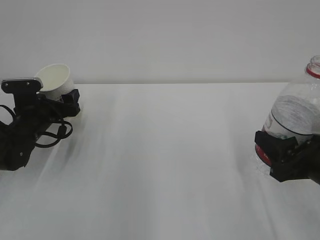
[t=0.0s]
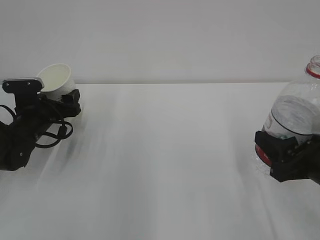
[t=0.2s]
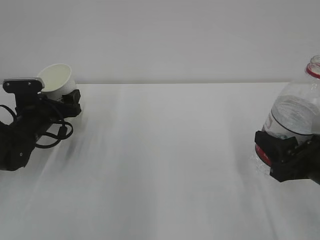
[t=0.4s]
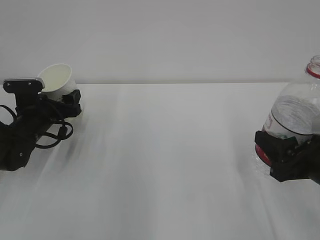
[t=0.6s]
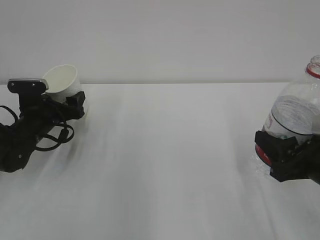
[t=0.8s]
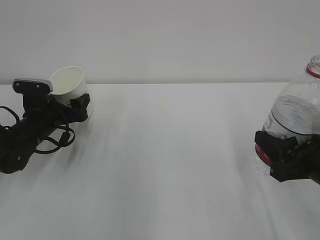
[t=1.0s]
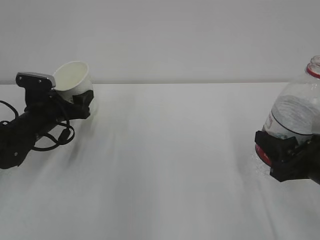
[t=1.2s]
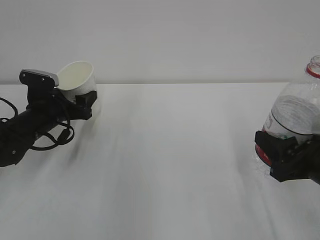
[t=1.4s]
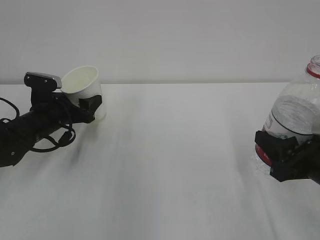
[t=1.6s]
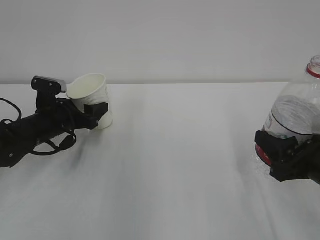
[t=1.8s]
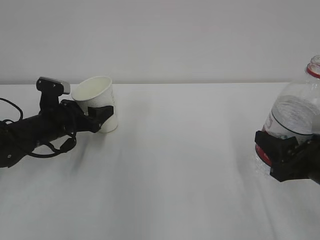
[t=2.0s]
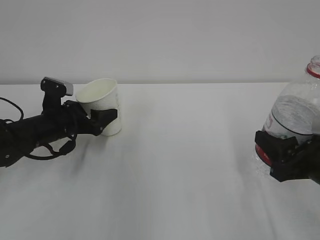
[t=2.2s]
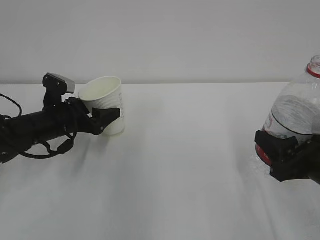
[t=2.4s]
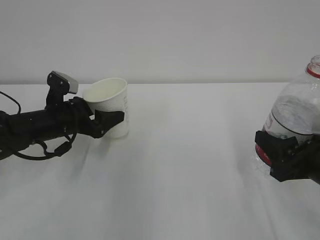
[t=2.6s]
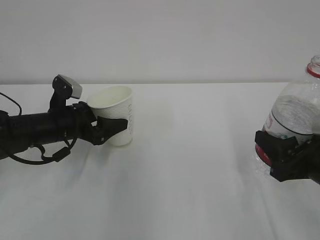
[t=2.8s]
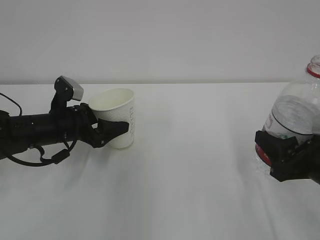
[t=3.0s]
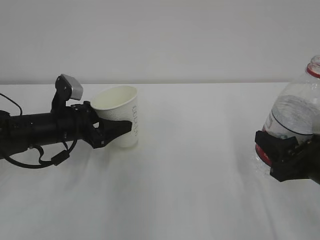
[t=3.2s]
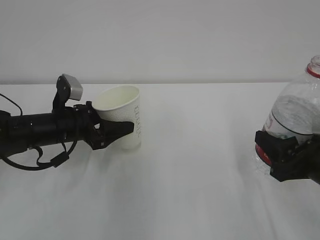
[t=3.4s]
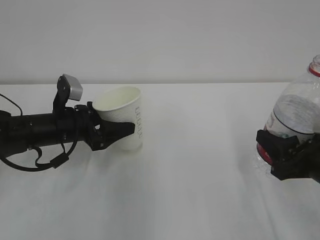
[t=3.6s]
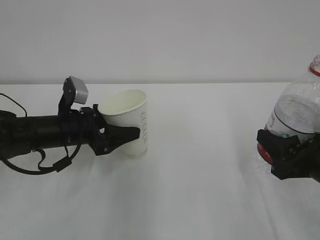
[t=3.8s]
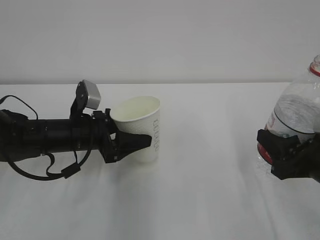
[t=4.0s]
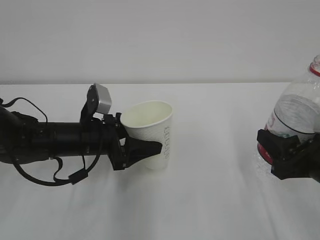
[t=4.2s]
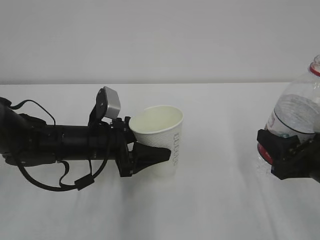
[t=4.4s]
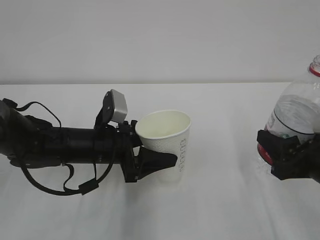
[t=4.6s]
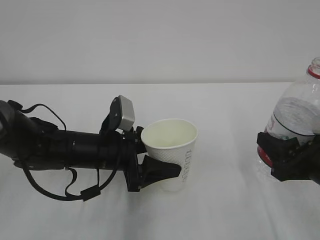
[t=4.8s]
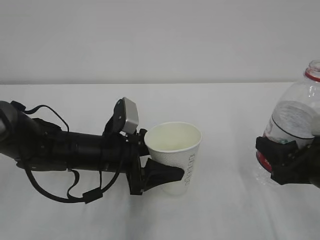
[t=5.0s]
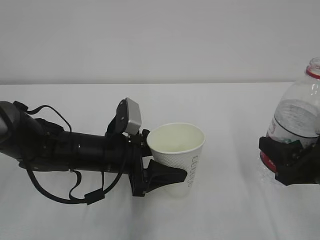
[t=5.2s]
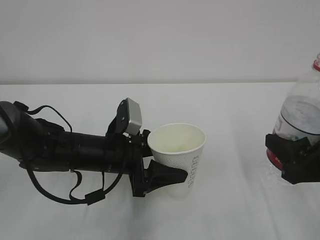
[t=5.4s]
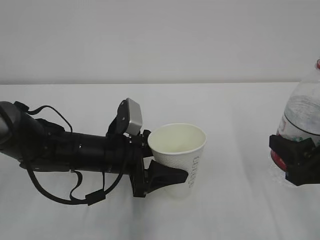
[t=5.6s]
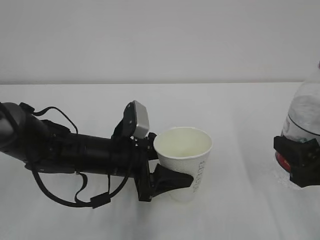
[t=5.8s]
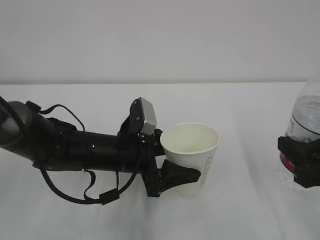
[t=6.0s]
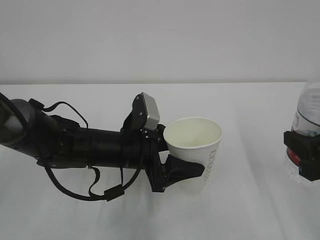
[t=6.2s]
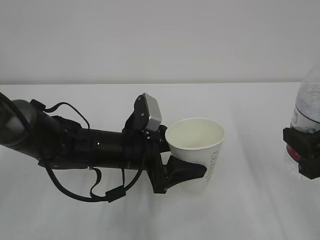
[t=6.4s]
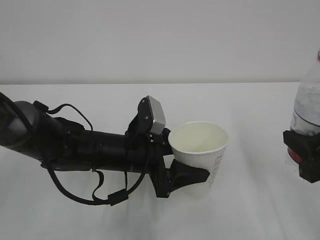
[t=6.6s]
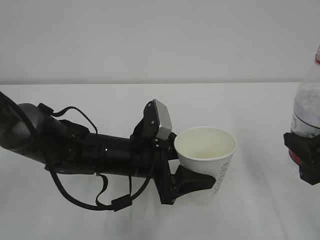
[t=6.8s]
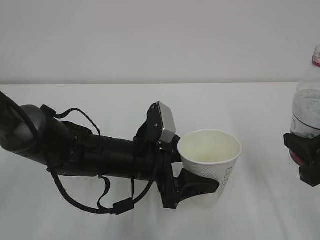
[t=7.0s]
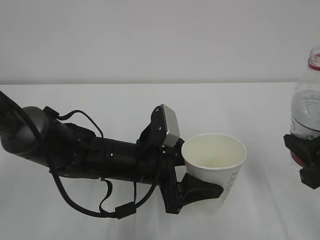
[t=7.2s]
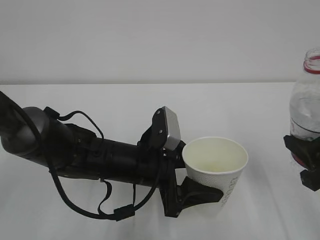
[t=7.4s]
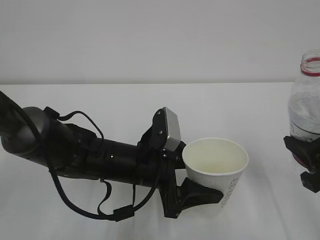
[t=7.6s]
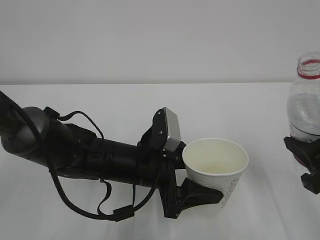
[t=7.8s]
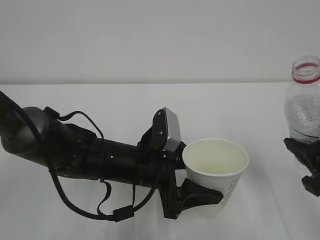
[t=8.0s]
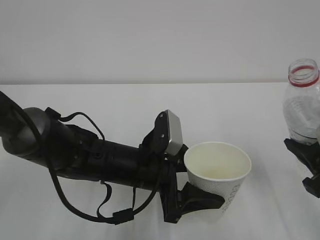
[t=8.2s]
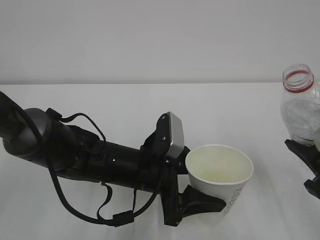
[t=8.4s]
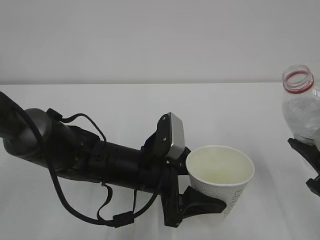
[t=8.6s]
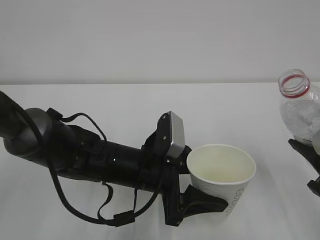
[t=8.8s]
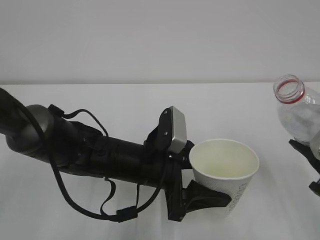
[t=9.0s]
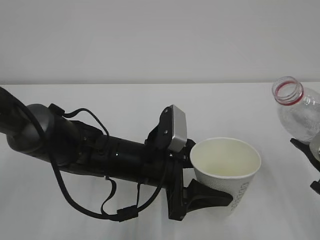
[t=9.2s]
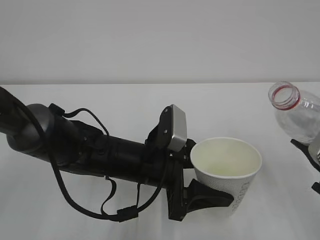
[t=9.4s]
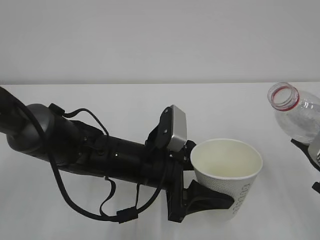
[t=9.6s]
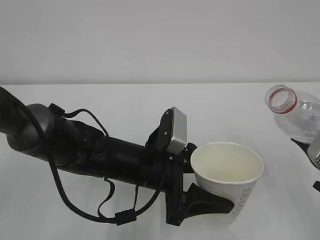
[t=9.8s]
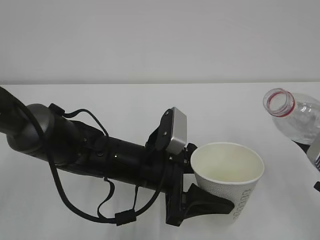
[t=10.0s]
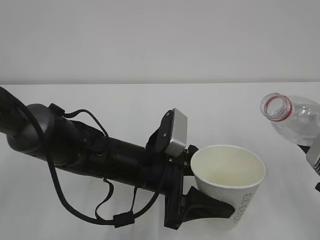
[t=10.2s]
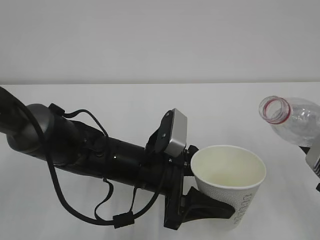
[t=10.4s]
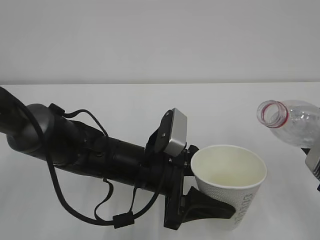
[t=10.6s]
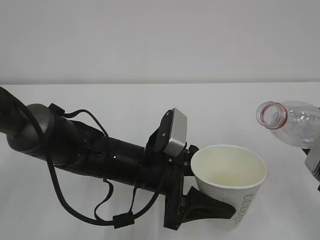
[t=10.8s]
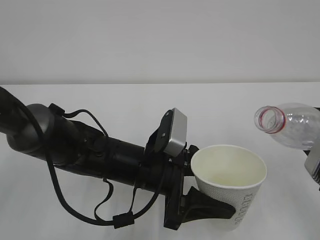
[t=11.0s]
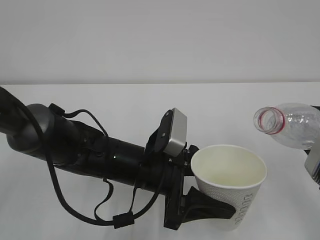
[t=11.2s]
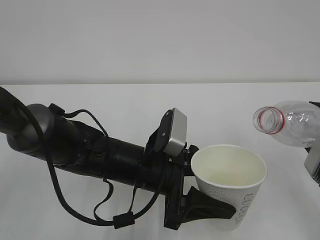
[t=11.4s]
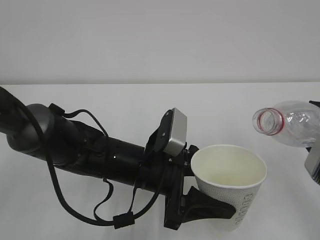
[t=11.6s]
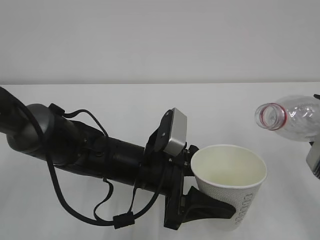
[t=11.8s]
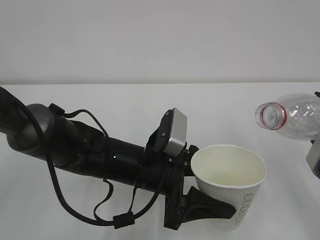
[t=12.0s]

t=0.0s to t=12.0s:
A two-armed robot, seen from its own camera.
t=3.0s to t=4.4s: The left gripper moves to the right, some 5 cm.
t=4.4s to t=6.0s: The left gripper heads to the right, covering roughly 5 cm.
t=6.0s to t=7.6s: The grippers move only a little.
t=9.0s to t=10.4s: The grippers move only a little.
t=10.4s to t=12.0s: The grippers stay close to where they were, moving slightly.

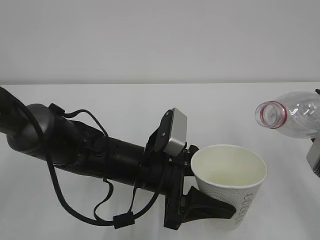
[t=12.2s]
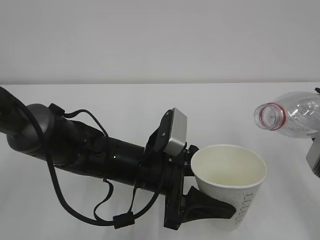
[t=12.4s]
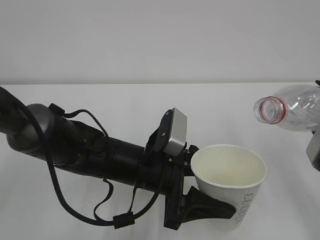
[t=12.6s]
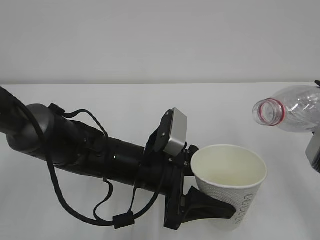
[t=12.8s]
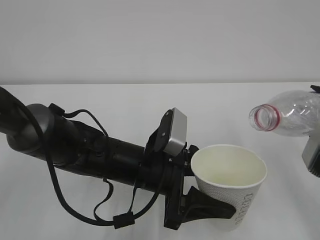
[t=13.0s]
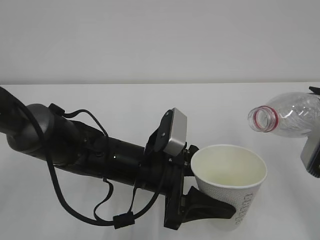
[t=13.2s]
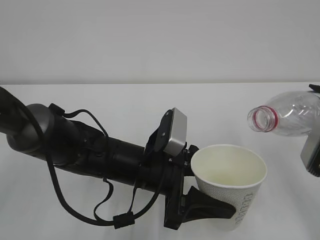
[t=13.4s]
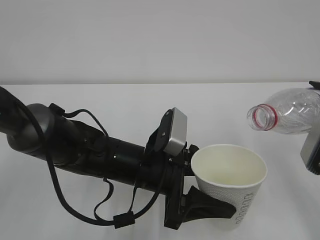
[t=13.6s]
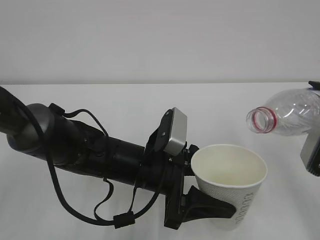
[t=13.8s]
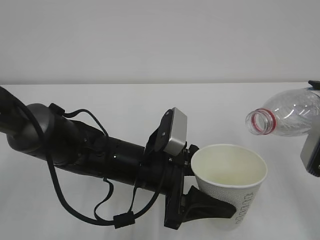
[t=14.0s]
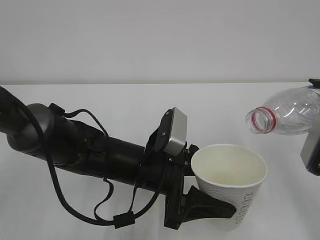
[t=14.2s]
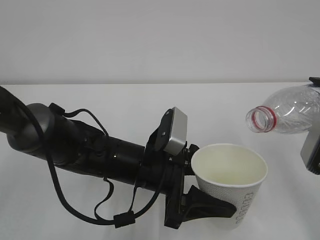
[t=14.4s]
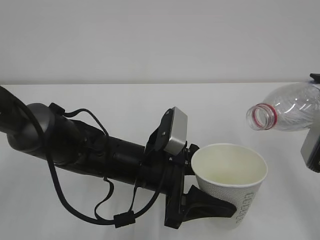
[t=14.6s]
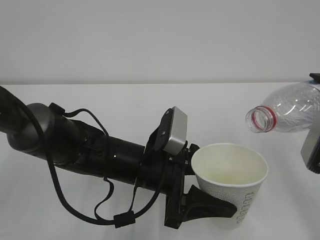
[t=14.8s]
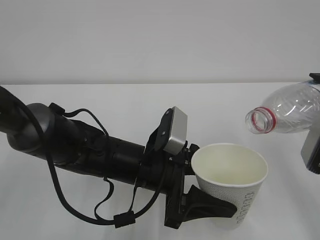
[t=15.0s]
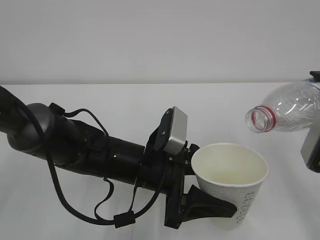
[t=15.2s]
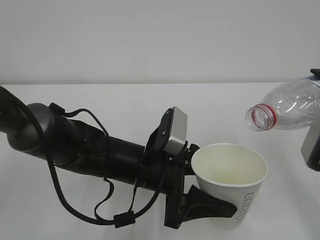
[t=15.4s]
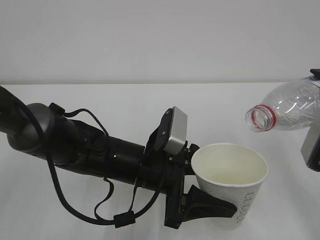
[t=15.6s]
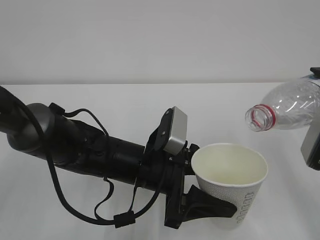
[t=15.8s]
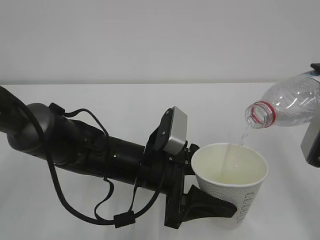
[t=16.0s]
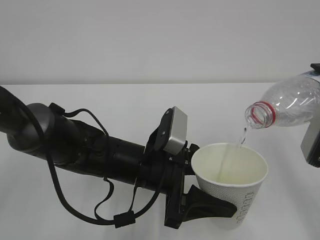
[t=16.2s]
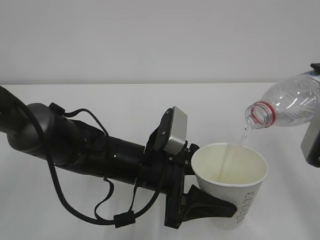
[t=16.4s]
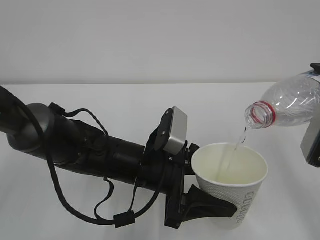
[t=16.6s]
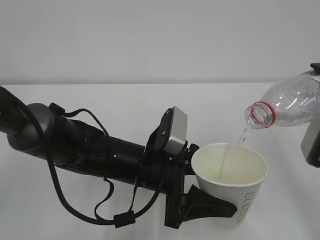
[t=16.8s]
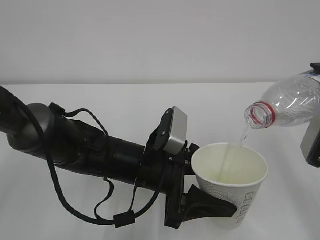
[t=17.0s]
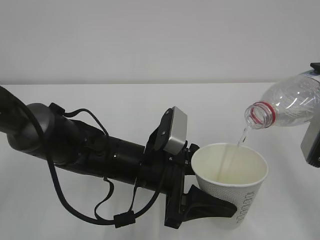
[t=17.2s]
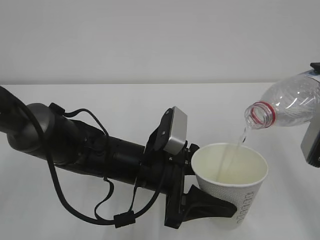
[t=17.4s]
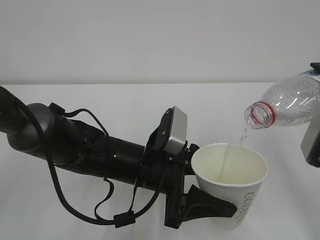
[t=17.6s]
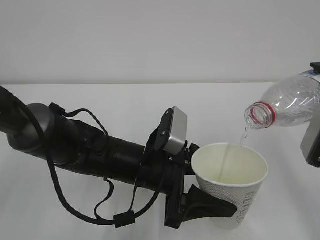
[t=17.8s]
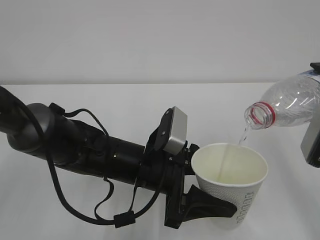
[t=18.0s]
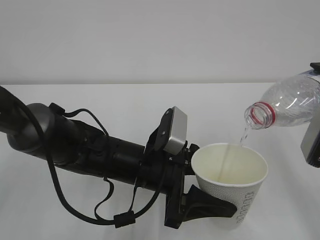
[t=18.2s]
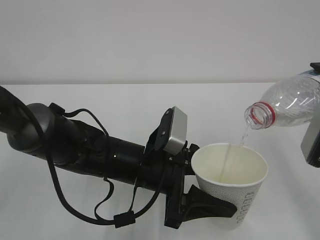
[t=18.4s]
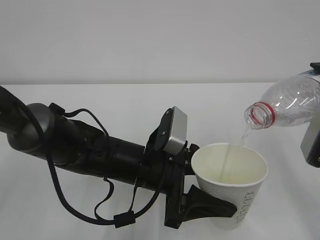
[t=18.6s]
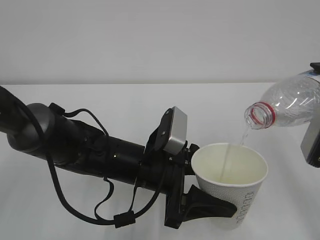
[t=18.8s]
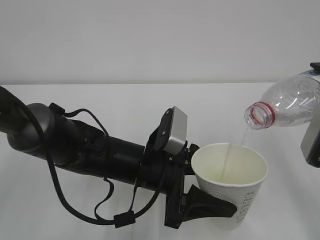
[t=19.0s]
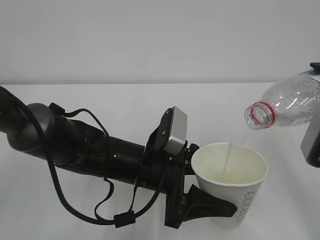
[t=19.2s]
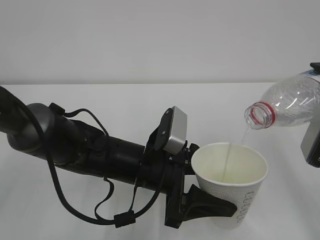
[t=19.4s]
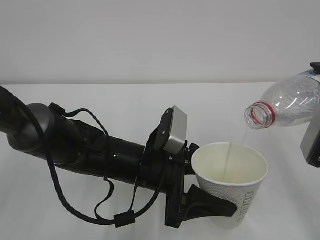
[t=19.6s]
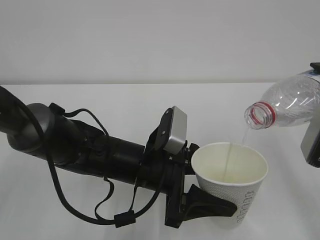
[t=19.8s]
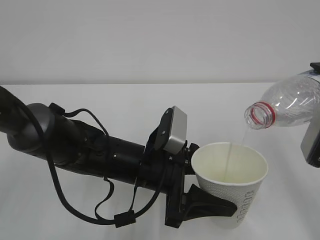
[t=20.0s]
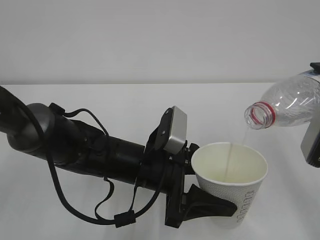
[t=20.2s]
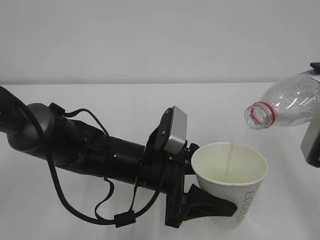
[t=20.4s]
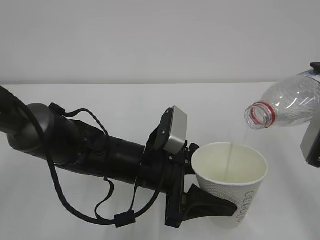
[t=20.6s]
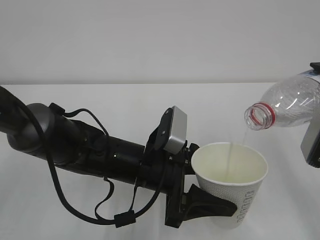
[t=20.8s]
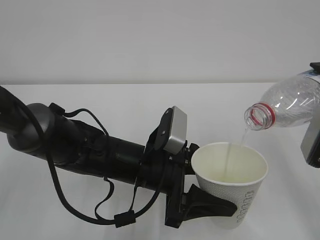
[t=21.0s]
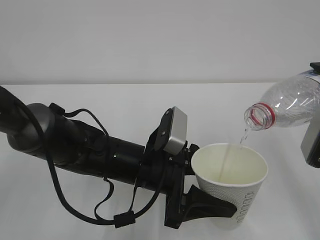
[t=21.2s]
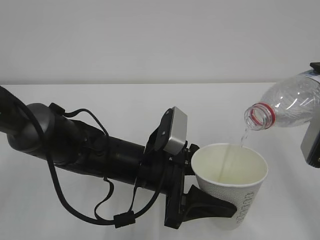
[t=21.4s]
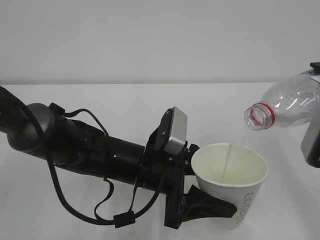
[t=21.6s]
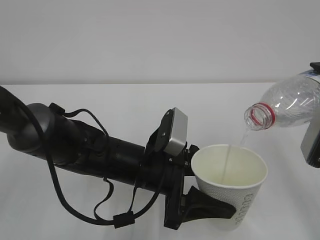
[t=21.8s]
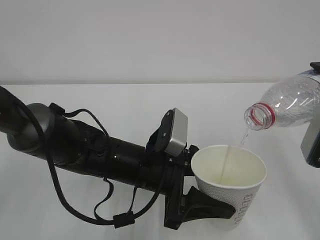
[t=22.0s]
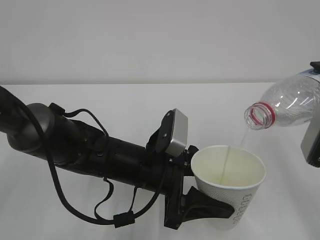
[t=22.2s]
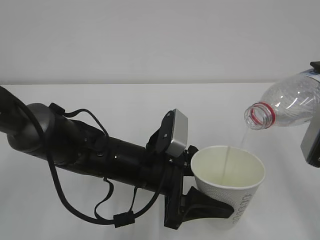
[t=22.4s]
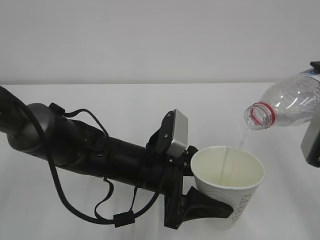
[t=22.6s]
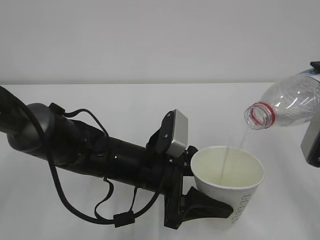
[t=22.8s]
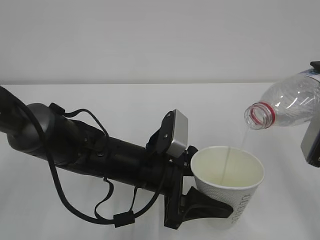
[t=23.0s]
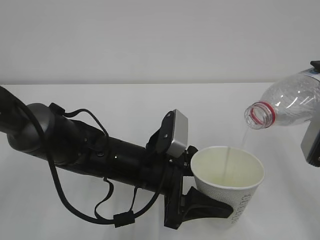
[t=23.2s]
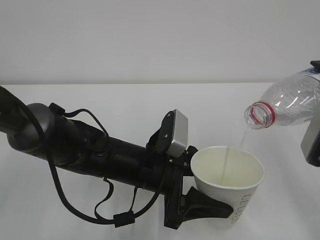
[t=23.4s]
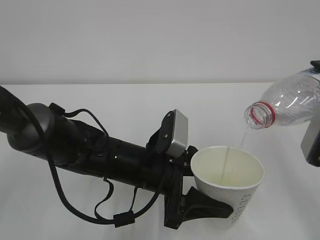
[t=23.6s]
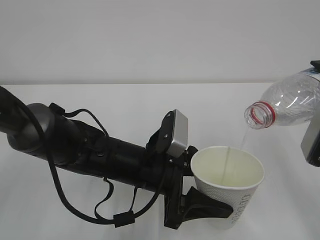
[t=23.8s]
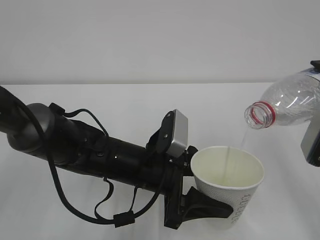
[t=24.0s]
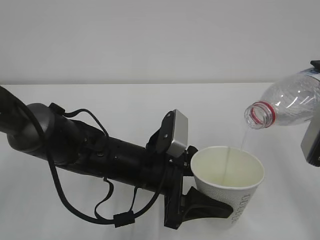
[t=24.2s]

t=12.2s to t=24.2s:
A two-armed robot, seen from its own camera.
t=12.2s to t=15.2s: The grippers make only small movements.
t=15.2s to t=24.2s: The two grippers keep their place.
